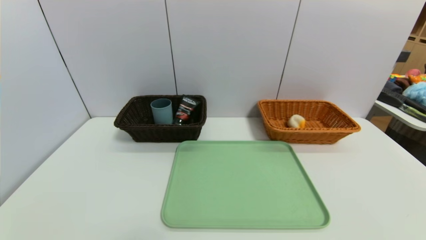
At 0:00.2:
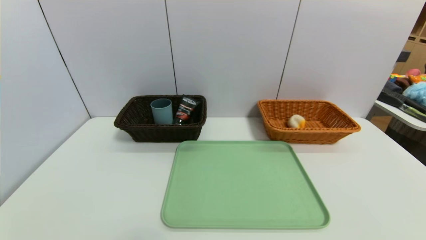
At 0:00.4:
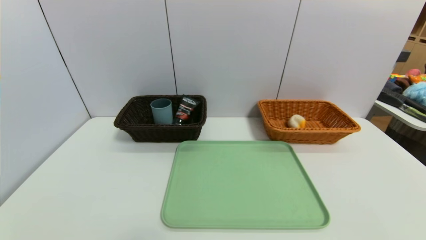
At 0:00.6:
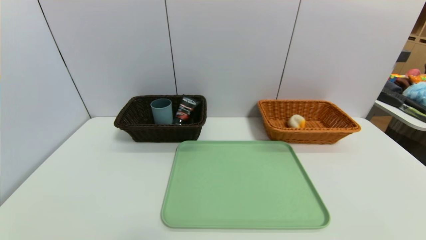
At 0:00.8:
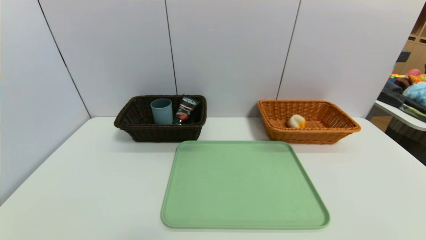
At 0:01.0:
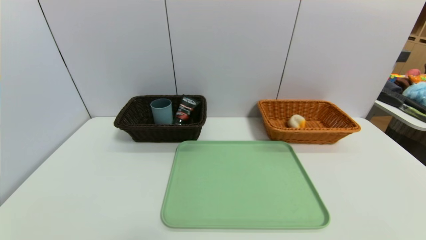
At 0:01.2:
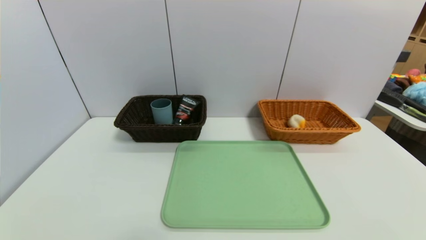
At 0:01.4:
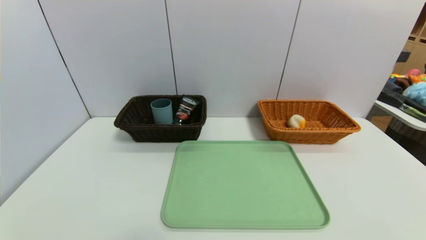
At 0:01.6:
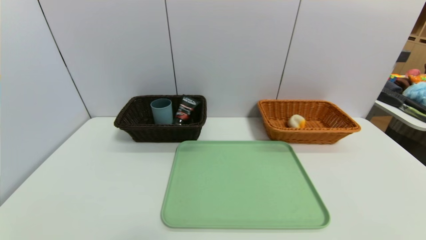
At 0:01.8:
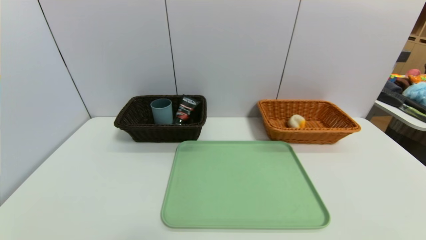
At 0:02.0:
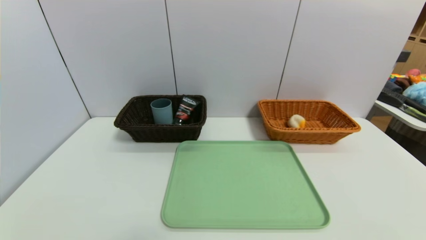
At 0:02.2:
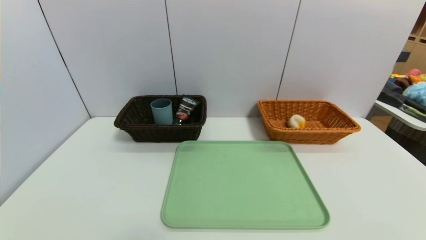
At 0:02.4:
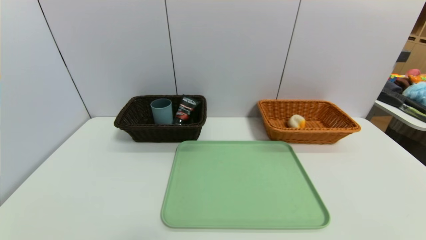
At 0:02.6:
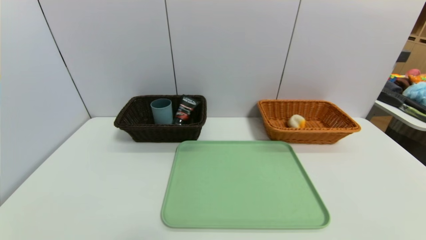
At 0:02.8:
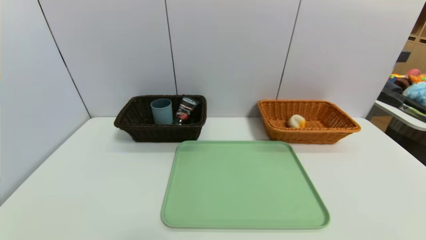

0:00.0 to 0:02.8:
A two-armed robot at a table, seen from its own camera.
Task of the whole recording: place the food in the right basket with the right gripper, and place the non food items in the left basket with the left gripper.
0:01.4 to 0:02.8: Both grippers stay put.

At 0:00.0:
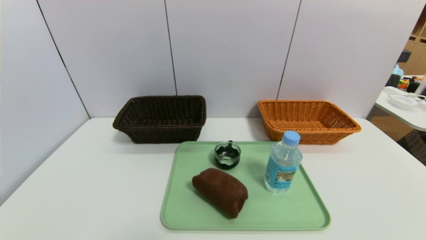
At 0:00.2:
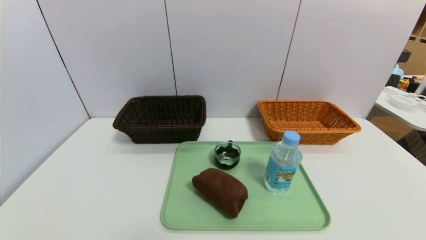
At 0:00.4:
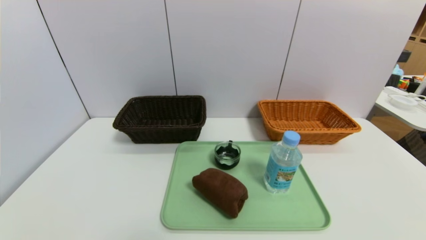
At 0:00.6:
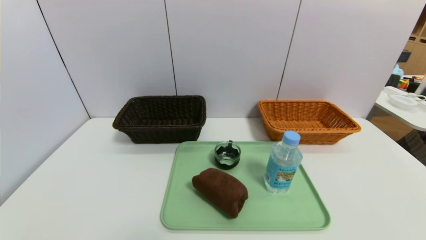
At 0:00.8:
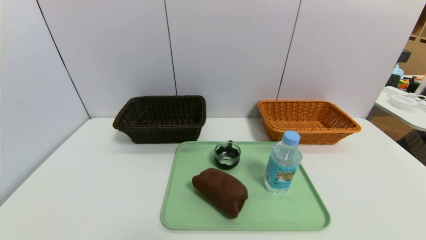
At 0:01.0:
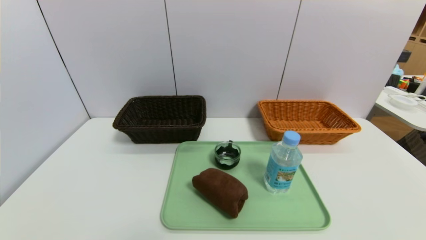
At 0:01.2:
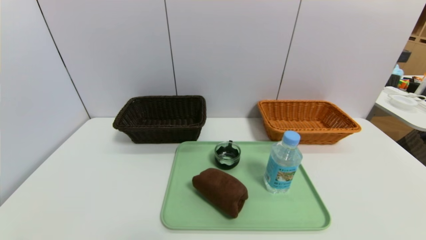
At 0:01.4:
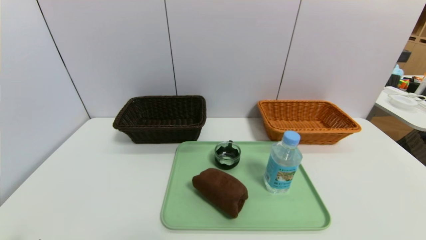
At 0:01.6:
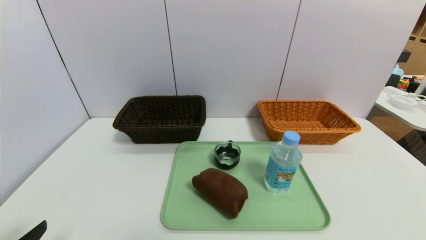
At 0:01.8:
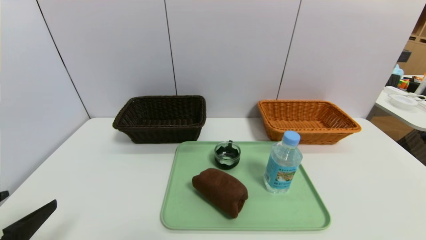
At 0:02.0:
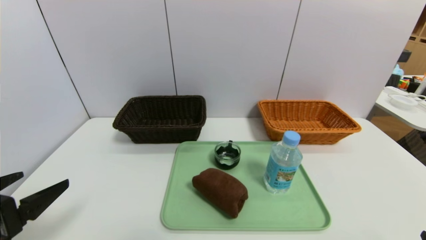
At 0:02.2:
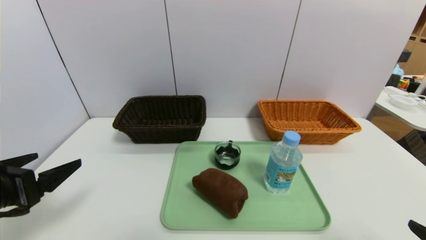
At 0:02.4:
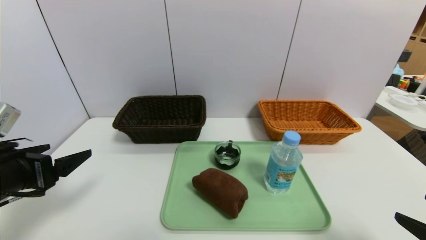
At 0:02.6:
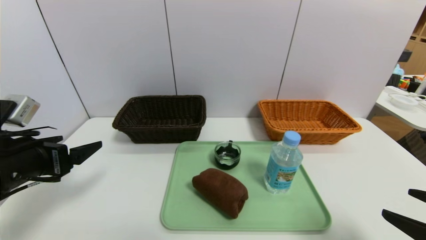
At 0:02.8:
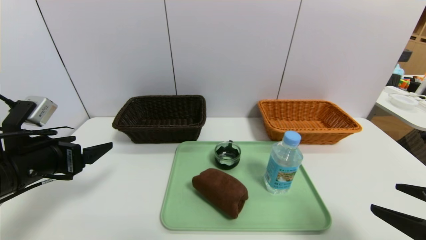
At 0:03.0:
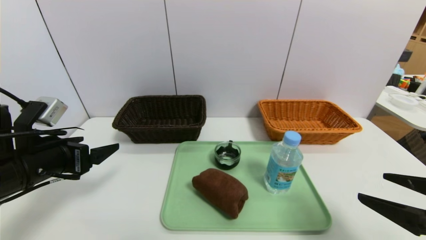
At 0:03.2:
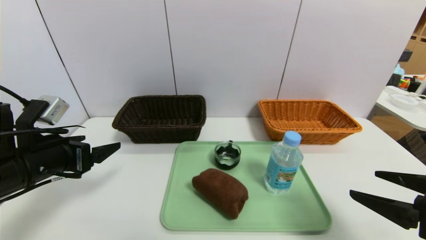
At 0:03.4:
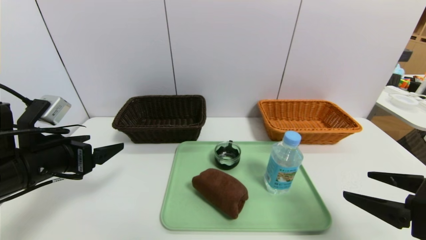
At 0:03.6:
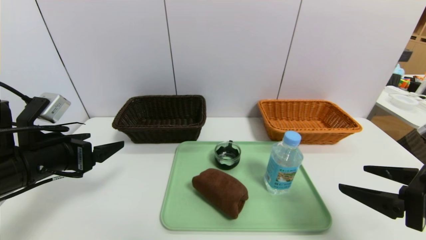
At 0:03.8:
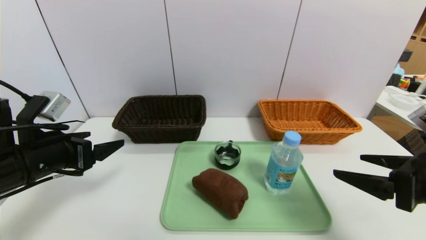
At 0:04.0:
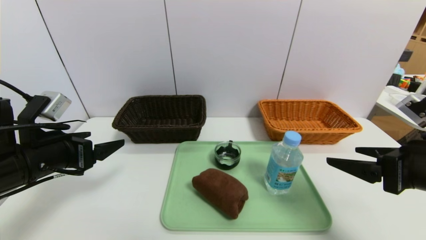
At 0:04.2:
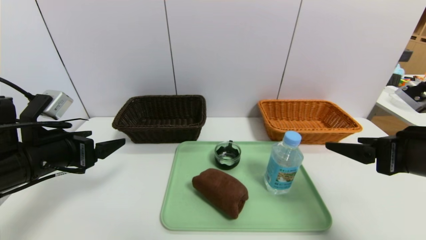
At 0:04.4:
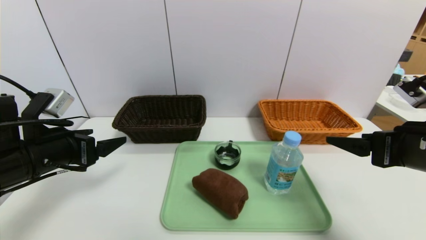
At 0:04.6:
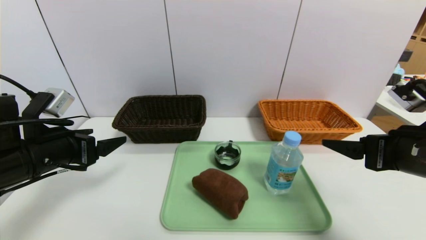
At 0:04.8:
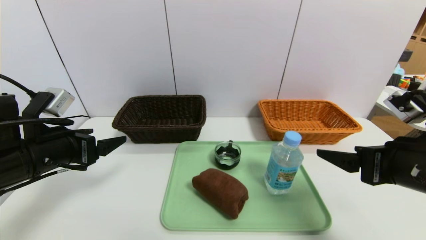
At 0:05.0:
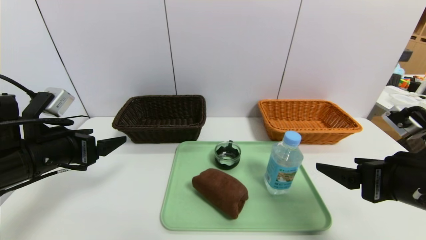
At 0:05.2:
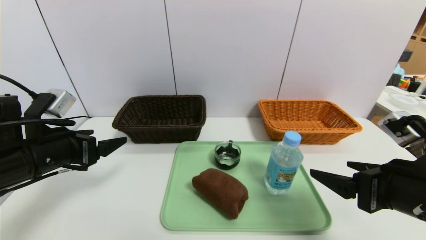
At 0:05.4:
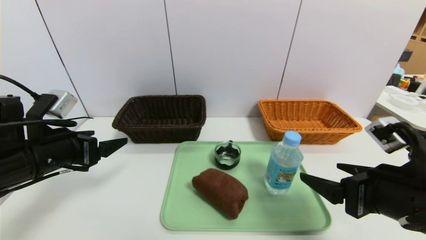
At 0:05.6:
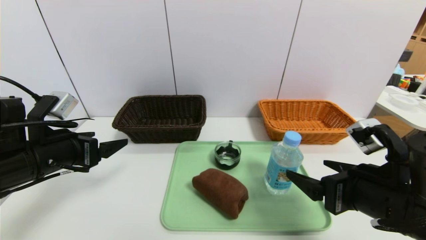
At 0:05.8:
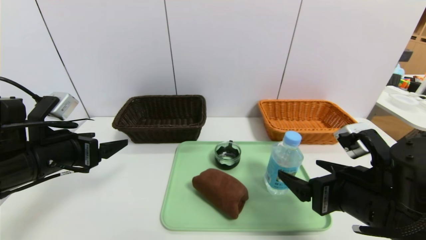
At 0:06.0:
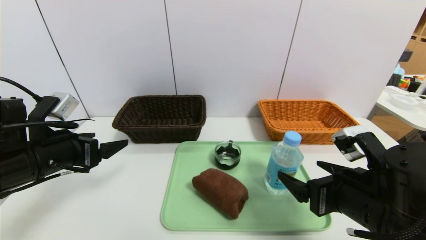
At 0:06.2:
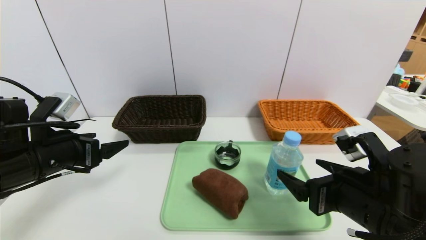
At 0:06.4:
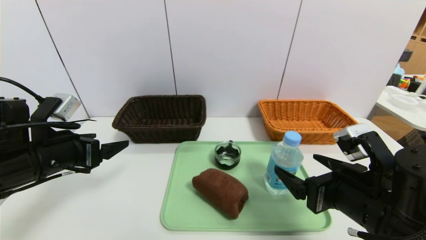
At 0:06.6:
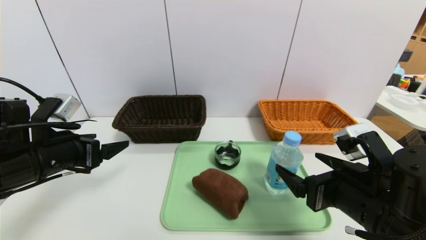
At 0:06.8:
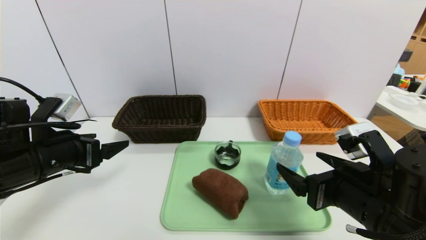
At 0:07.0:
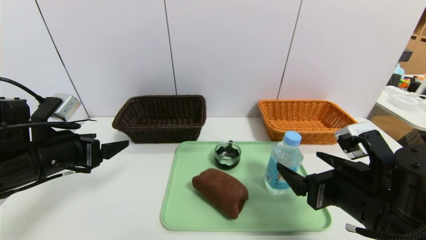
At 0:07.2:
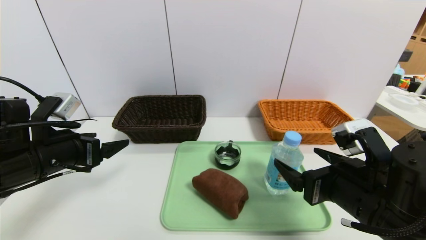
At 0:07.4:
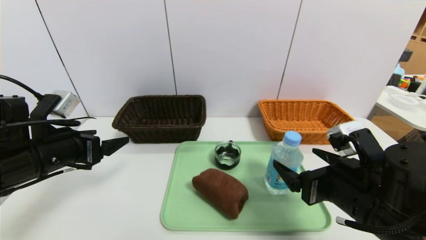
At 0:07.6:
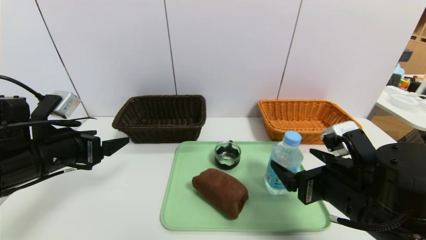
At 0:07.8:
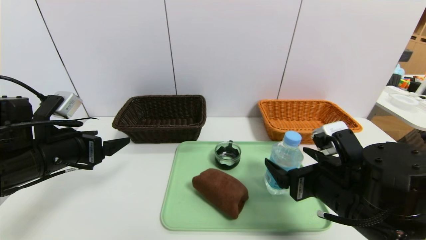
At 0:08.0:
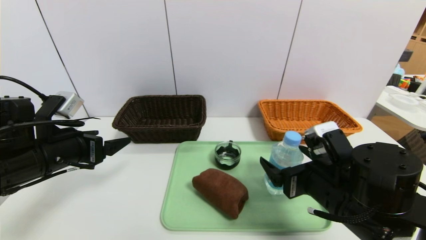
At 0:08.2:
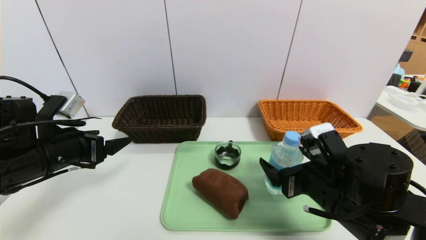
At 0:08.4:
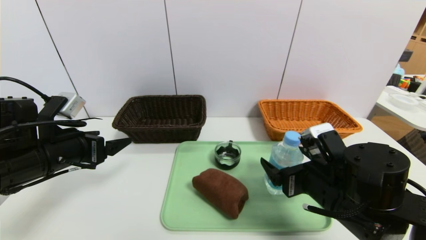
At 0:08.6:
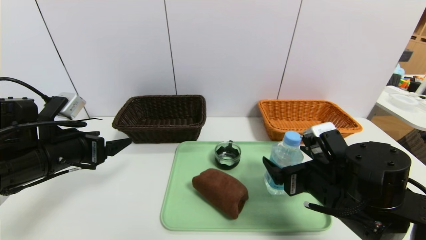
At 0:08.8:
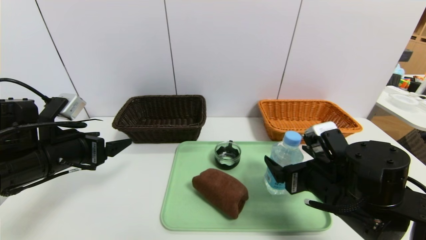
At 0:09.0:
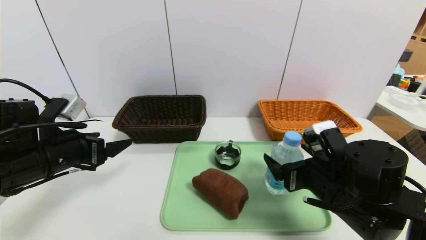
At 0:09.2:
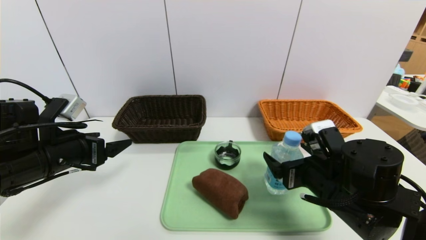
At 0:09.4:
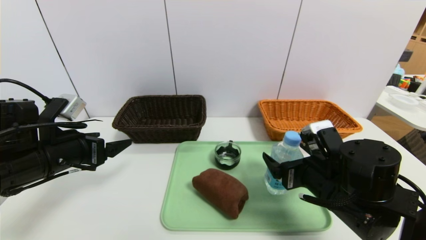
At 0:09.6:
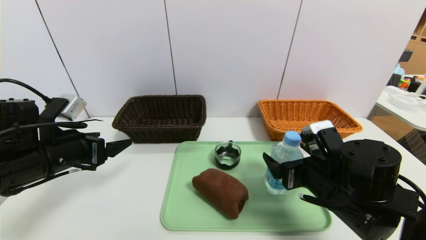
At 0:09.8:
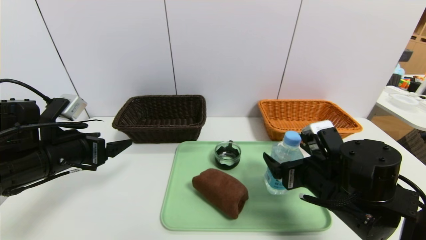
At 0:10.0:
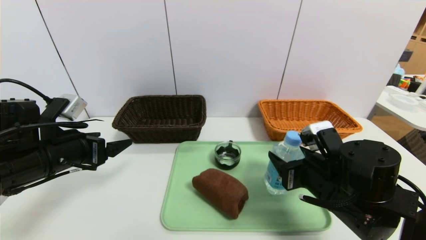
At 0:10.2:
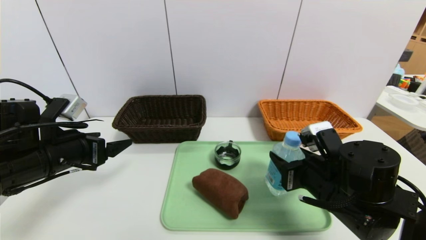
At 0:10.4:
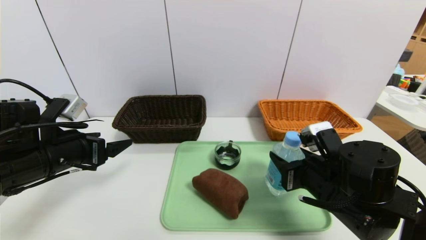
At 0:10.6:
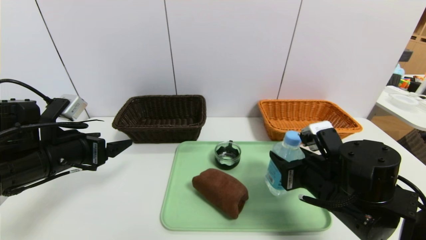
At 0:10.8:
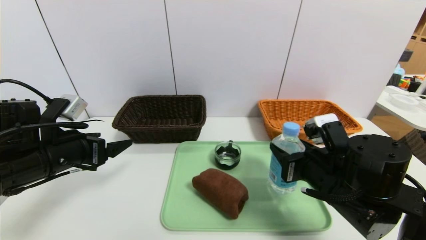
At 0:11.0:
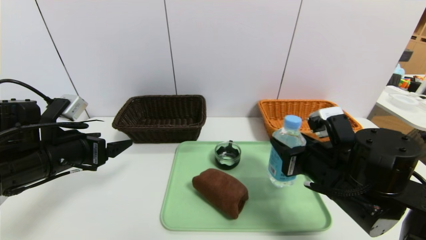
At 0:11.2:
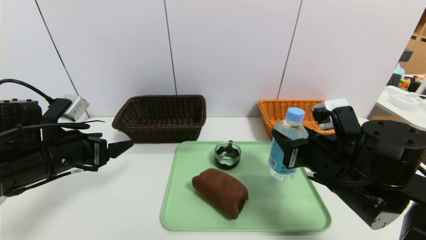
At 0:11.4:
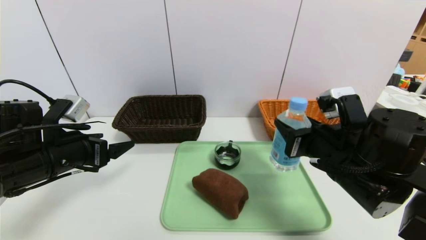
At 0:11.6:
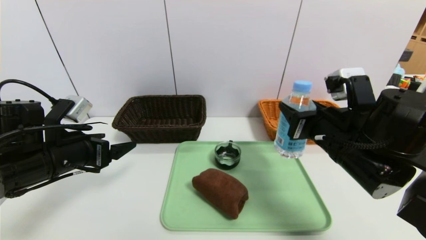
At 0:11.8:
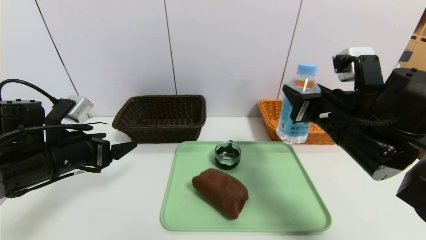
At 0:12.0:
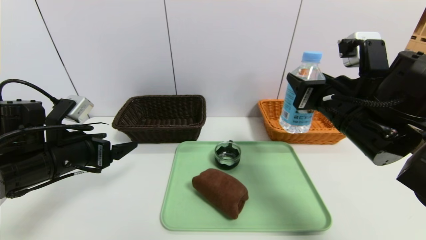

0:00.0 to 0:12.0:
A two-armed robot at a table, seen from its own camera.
Task of the whole recording: place the food in the right basket with the right gripper, and place the non food items in the left basket with the left gripper.
0:01.6 to 0:03.0: The left gripper heads forward, covering approximately 15 cm. The right gripper travels forward and upward by about 15 cm.
0:03.0 to 0:04.4: The right gripper heads forward, covering about 10 cm.
0:04.4 to 0:06.0: The right gripper heads to the left and downward, covering some 10 cm.
0:06.0 to 0:09.0: The grippers stay close to where they were, moving slightly.
0:09.0 to 0:10.4: The right gripper closes up.
0:10.4 to 0:12.0: The right gripper heads upward, covering approximately 10 cm.

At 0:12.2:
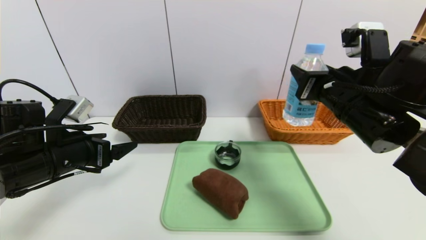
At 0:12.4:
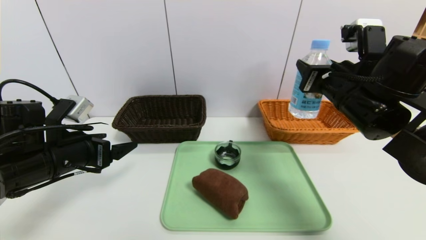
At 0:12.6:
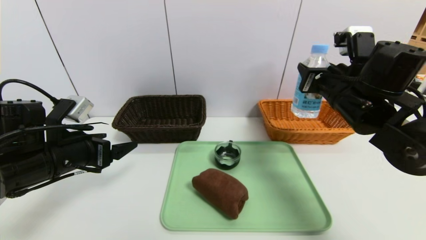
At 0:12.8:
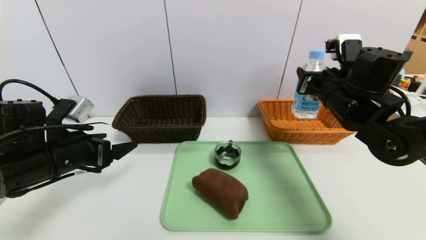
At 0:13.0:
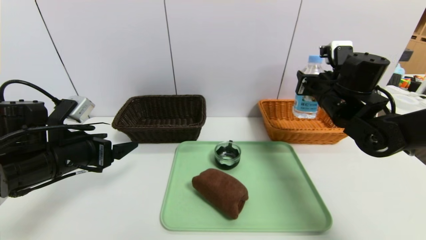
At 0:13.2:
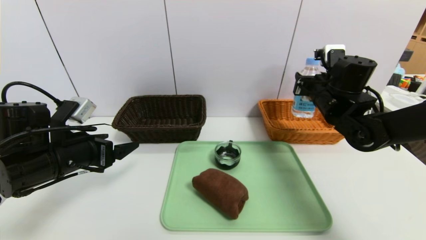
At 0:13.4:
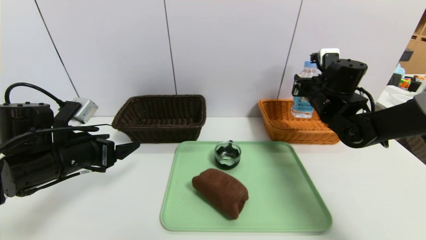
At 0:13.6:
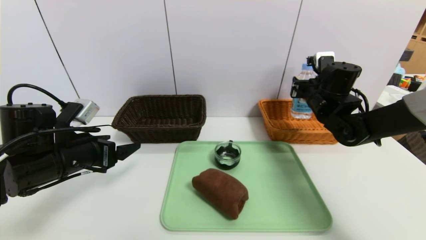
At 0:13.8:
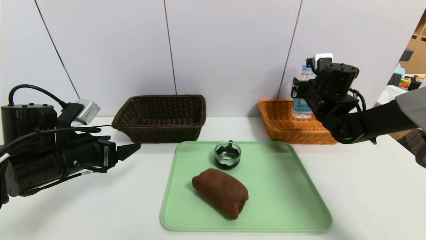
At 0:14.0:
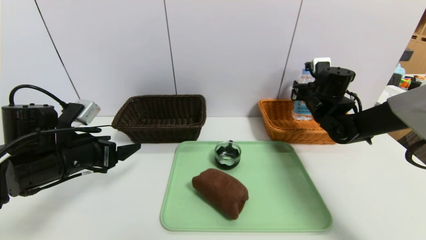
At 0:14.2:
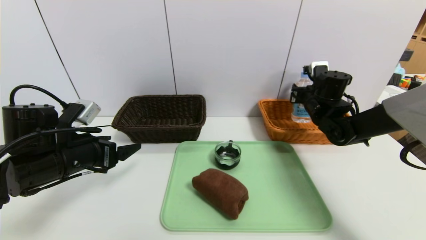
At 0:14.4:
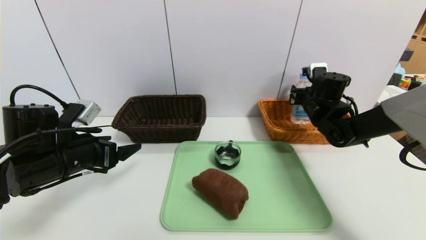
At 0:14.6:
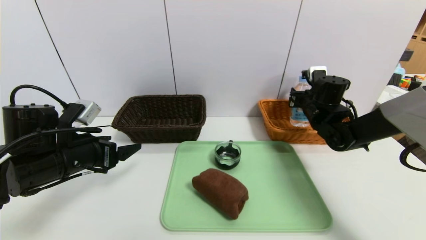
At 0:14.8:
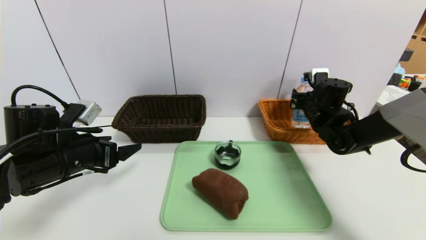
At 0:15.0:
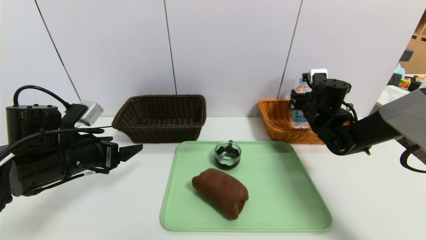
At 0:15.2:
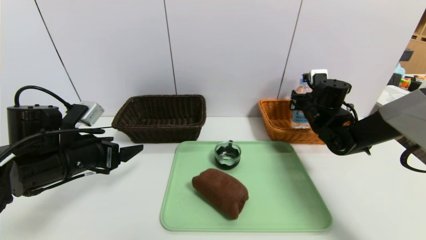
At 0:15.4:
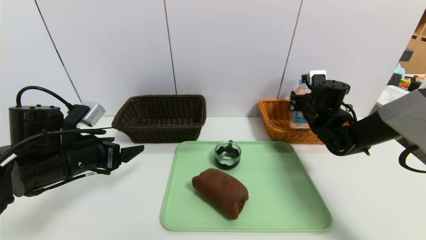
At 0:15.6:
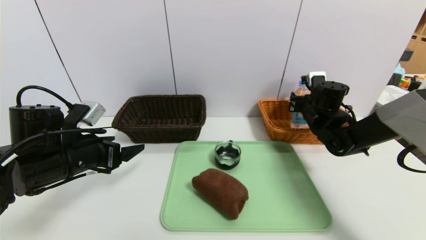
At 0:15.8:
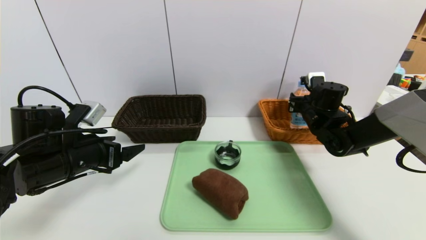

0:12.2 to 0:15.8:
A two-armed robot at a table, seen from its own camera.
Task of the whole recording: place the food in the right basket with the right gripper, and place the non food items in the left basket with the left gripper.
0:12.2 to 0:14.0: The right gripper is displaced forward and downward by approximately 20 cm.
0:14.0 to 0:15.8: There are only small adjustments of the grippers.
